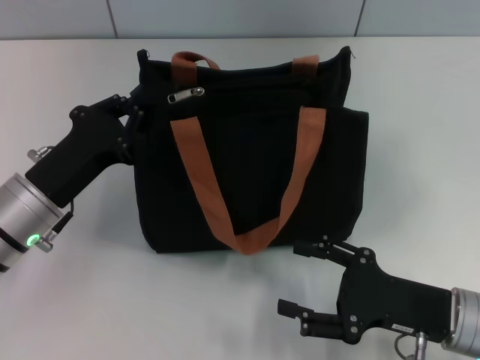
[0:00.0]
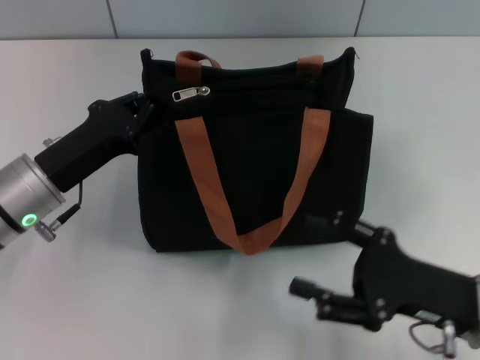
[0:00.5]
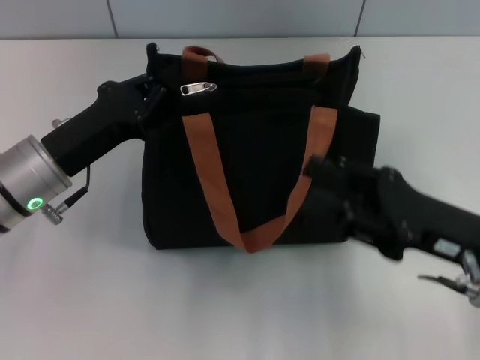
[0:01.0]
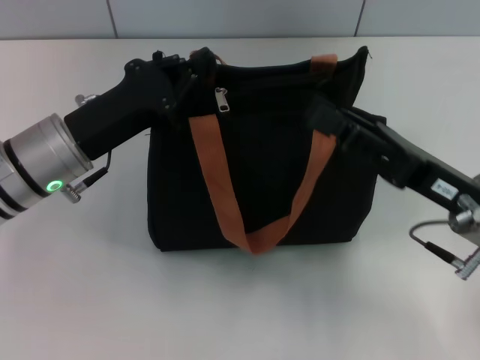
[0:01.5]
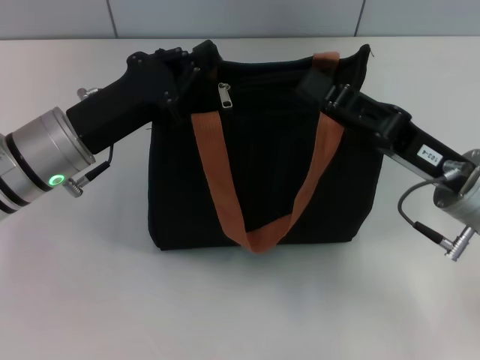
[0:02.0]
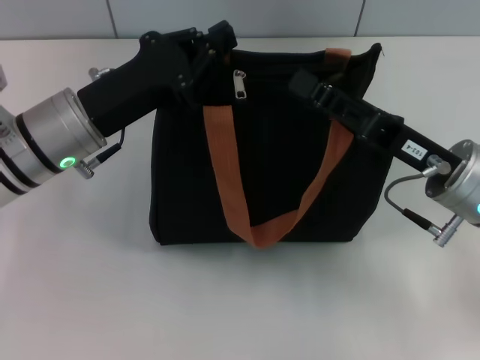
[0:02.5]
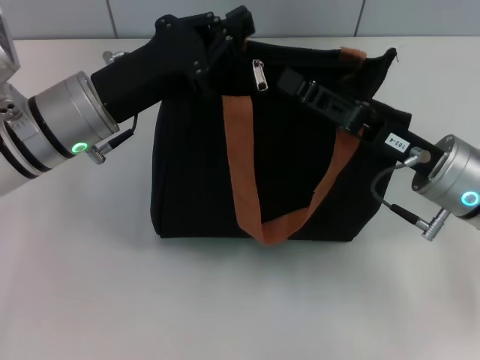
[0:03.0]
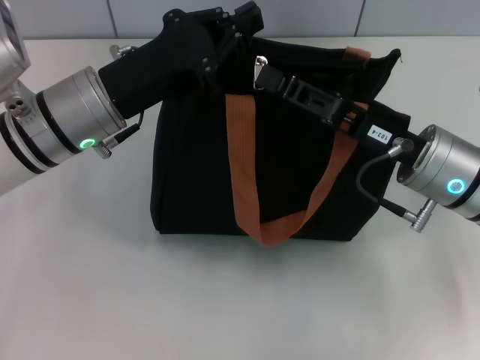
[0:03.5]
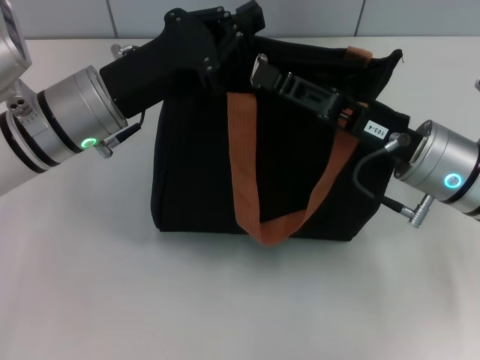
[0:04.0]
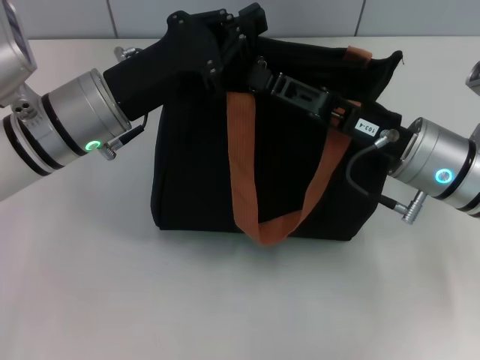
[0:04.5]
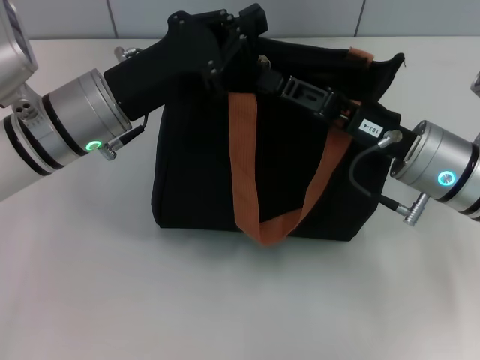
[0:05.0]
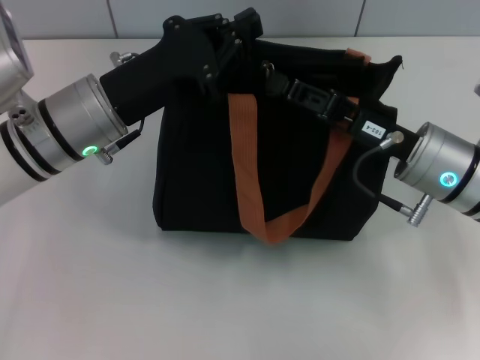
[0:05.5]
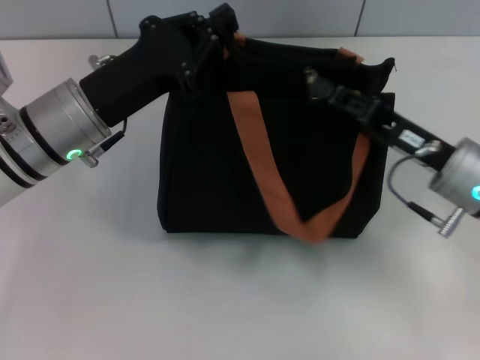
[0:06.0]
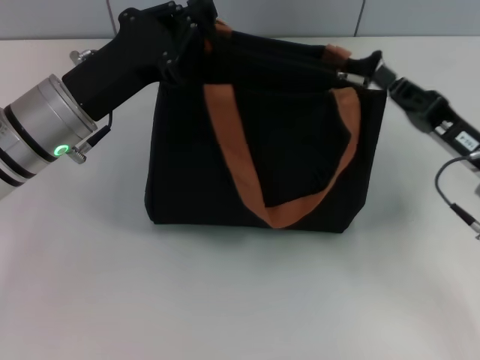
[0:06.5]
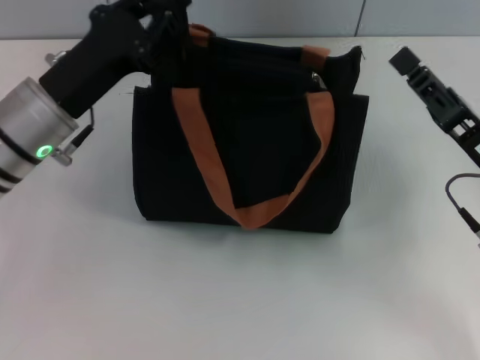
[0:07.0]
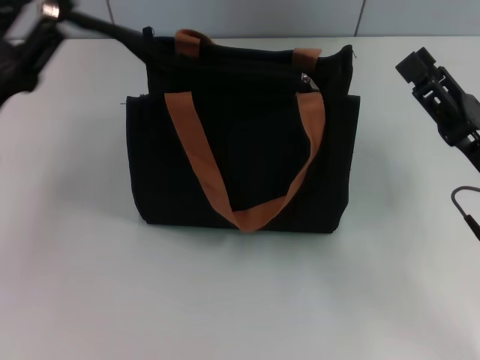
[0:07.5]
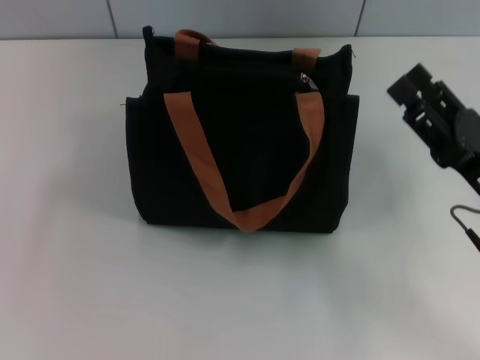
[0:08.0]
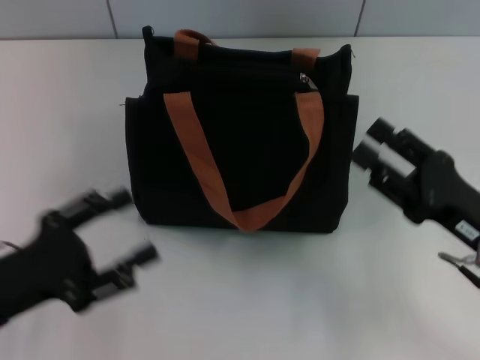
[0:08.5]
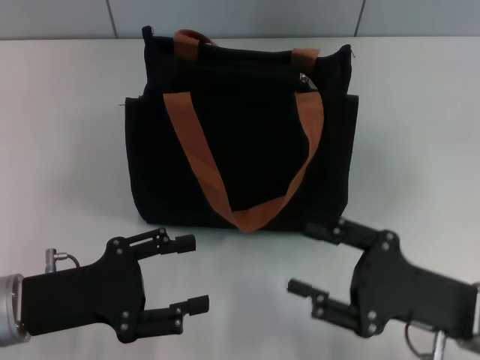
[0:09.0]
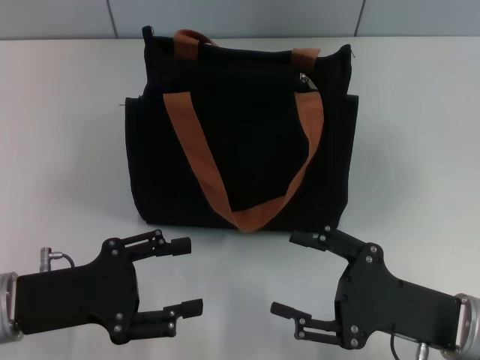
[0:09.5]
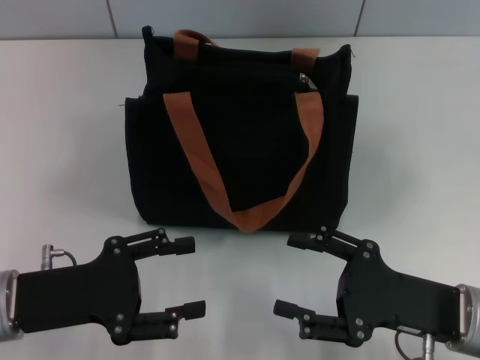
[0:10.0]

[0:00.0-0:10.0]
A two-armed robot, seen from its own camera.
Step, 0:00.0 to 0:06.0: Pull up the zipper with your right hand.
Step, 0:07.0 to 0:07.5: Grab the zipper with your left hand.
0:00.0 to 0:02.0: The left gripper moves roughly 5 cm; the right gripper shifts roughly 10 cm forward and upward, and closes up.
0:04.0 to 0:06.0: The right gripper closes up.
0:06.0 to 0:08.0: The left gripper travels to the left and backward by some 20 cm, and opens its fingers. Meanwhile the right gripper travels backward by about 5 cm, and opens up.
0:08.0 to 0:10.0: The left gripper is displaced to the right by roughly 10 cm. The right gripper ends up roughly 5 cm from where it was.

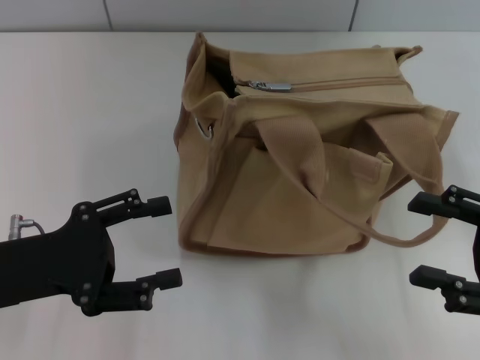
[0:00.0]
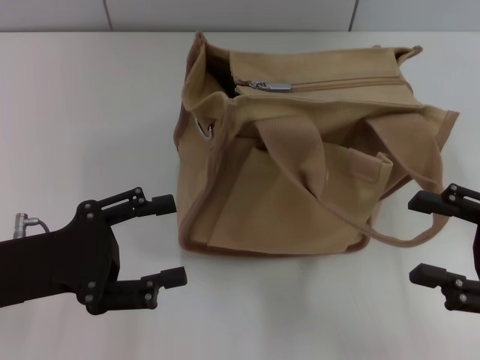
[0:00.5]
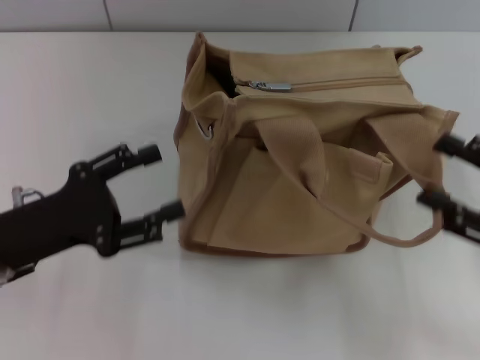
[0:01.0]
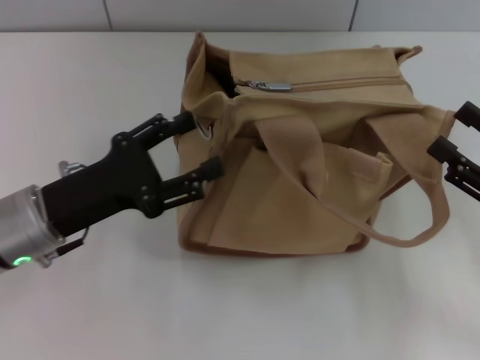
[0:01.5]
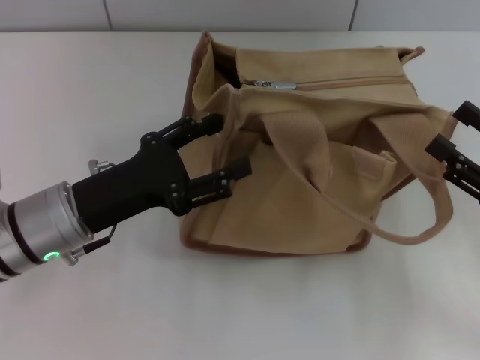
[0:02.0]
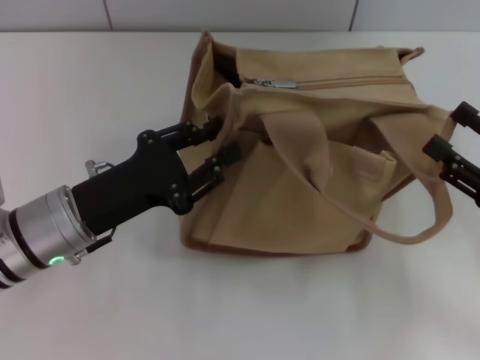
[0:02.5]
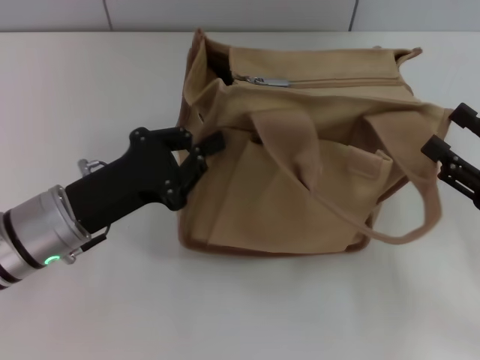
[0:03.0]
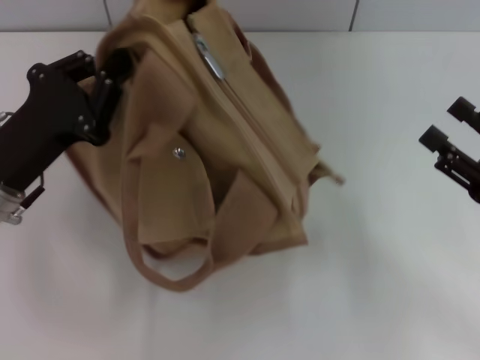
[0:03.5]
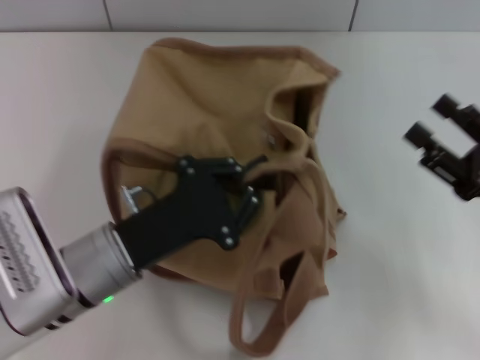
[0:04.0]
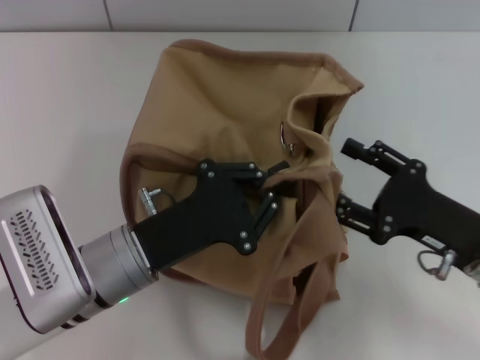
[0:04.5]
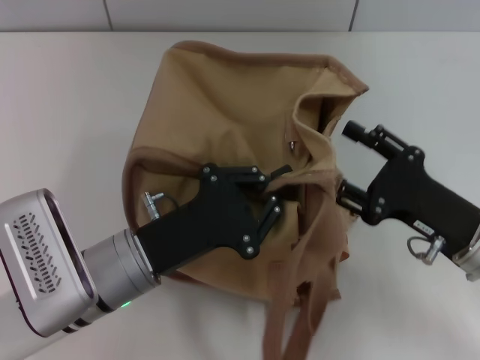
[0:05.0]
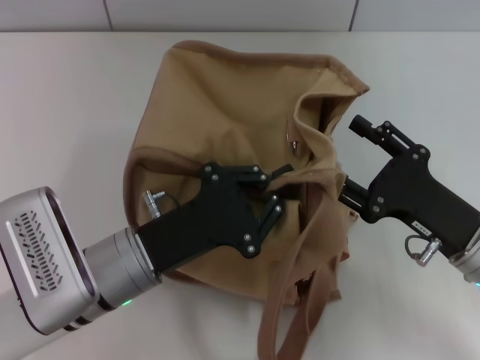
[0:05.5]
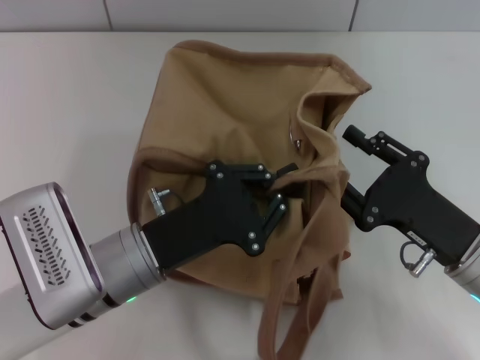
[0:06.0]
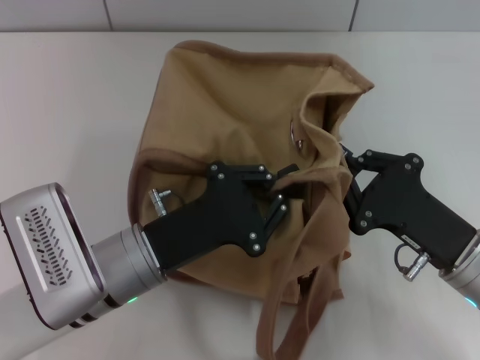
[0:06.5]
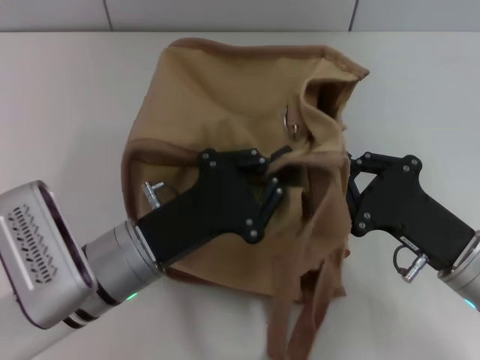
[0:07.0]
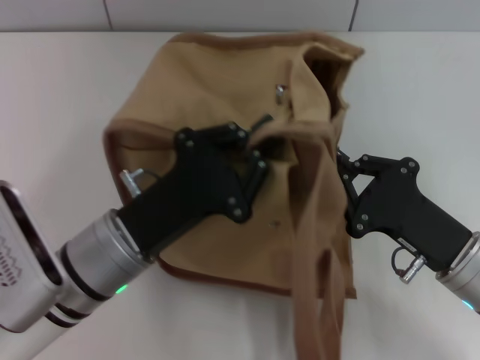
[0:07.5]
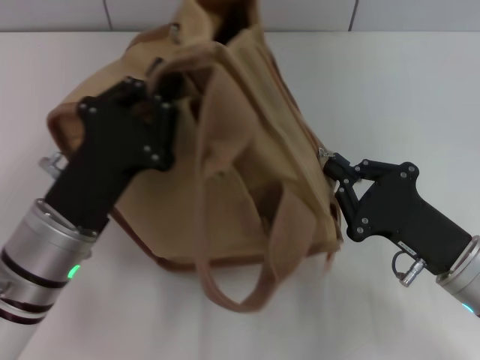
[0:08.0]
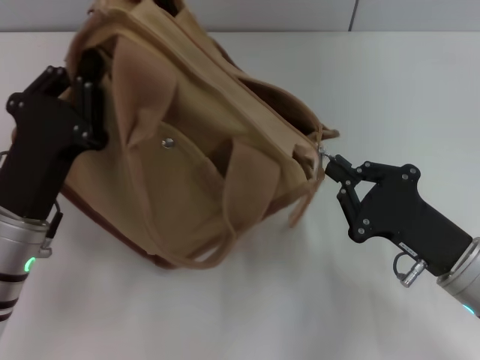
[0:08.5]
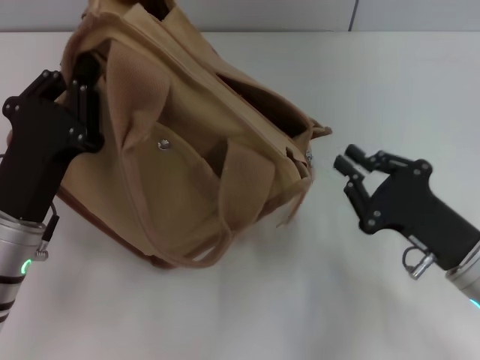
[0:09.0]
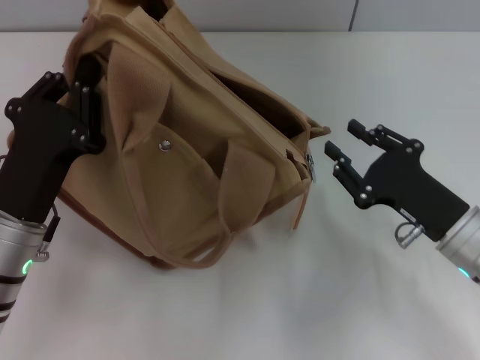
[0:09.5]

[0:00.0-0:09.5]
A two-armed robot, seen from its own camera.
Step, 0:00.0 to 0:08.5: Pull open the zipper with your right hand.
0:00.0 to 0:02.0: The left gripper heads to the right and forward, covering roughly 10 cm.
0:02.0 to 0:04.0: The left gripper changes place by about 5 cm, and closes up.
0:04.0 to 0:05.5: The right gripper goes roughly 5 cm to the left.
0:05.5 to 0:07.5: The right gripper closes.
0:07.5 to 0:09.5: The right gripper opens its fingers, while the left gripper heads to the left, covering about 5 cm.

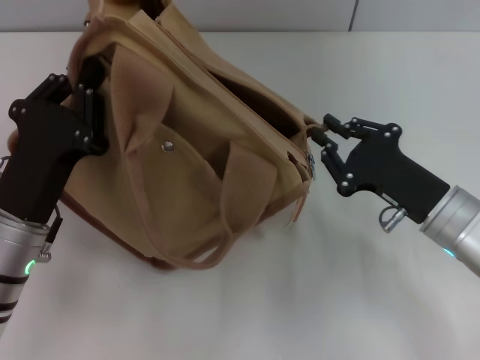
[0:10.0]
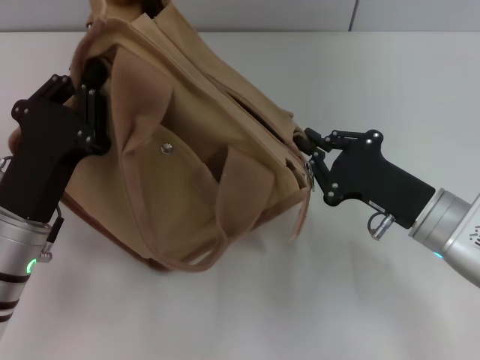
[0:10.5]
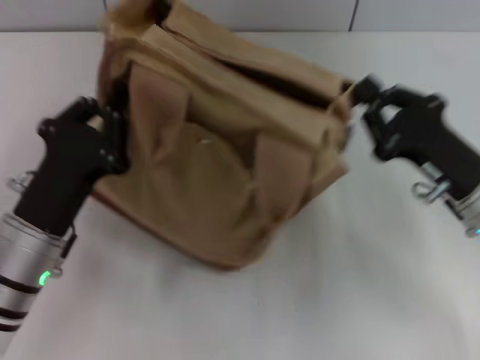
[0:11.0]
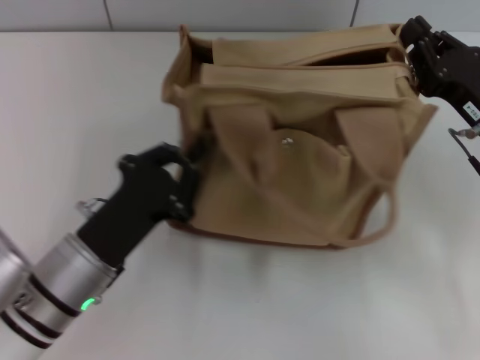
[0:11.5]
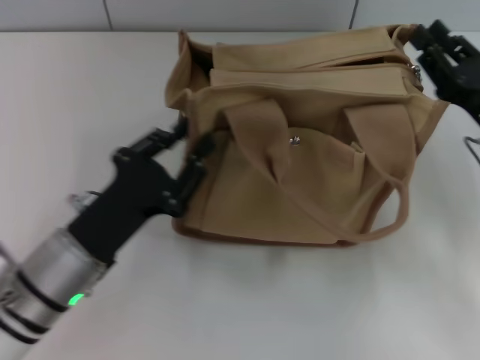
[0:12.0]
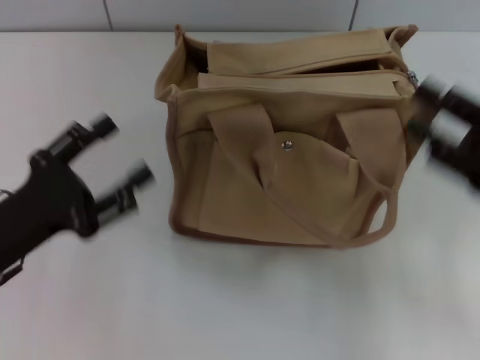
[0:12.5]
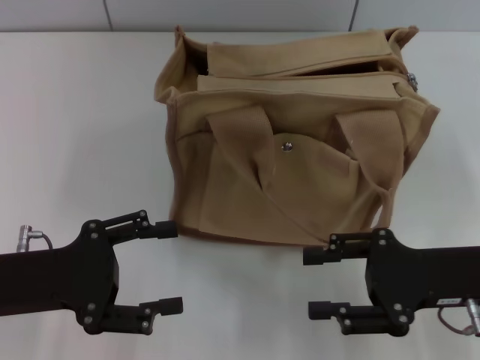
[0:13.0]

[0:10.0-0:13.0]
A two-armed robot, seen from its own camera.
Step, 0:10.0 to 0:12.0: Grab the bag with your left hand.
0:10.0 to 0:11.5: The right gripper ends up roughly 10 cm from where it was.
0:11.5 to 0:13.0: The right gripper moves backward, roughly 5 cm, and opens up; the left gripper goes approximately 10 cm to the left, and opens its fingers.
